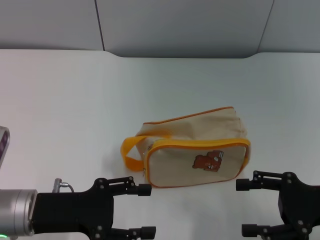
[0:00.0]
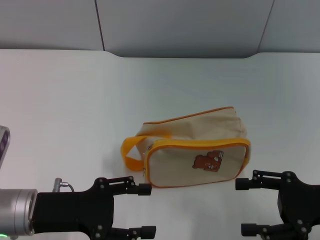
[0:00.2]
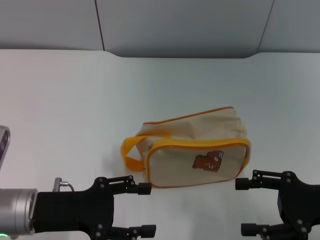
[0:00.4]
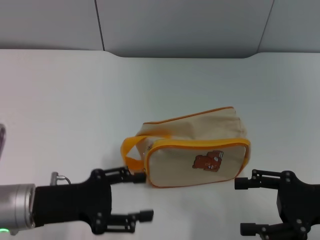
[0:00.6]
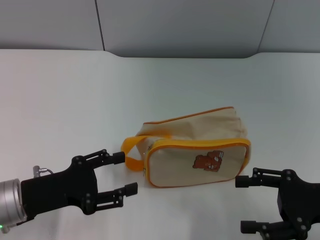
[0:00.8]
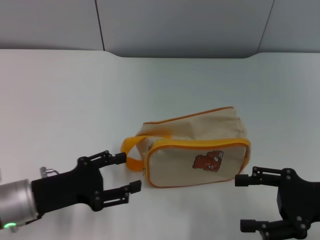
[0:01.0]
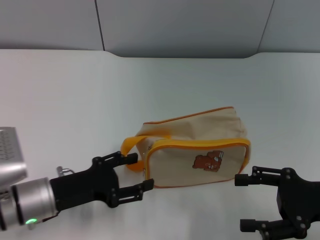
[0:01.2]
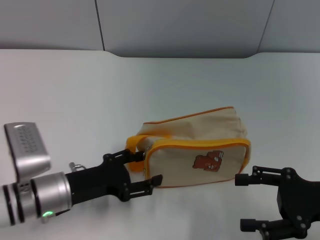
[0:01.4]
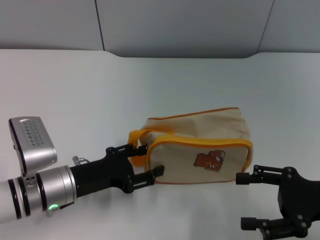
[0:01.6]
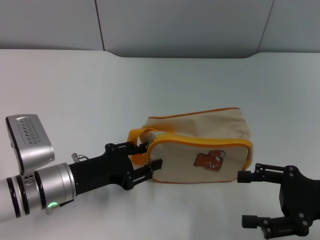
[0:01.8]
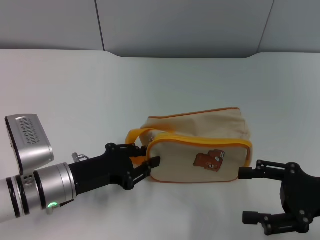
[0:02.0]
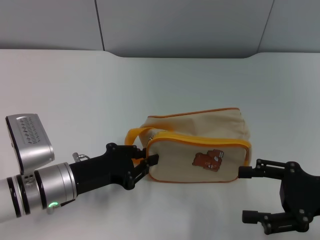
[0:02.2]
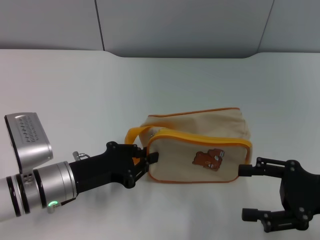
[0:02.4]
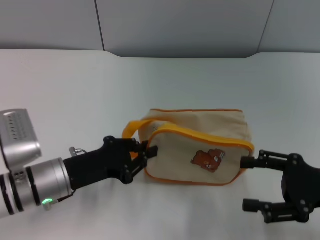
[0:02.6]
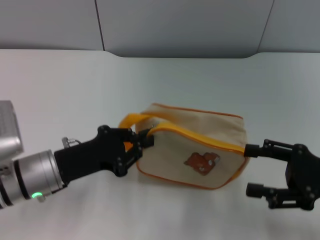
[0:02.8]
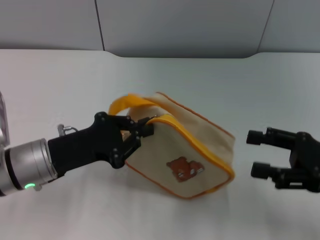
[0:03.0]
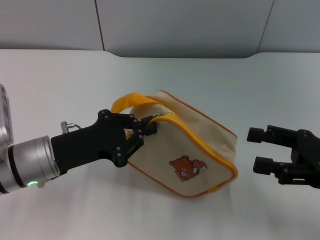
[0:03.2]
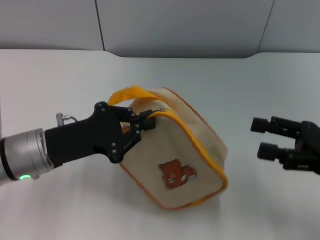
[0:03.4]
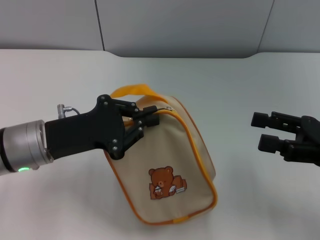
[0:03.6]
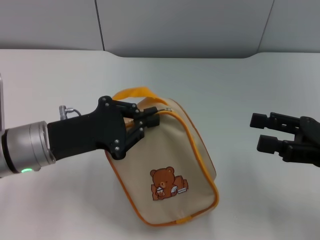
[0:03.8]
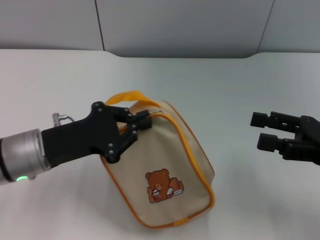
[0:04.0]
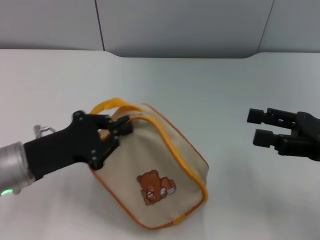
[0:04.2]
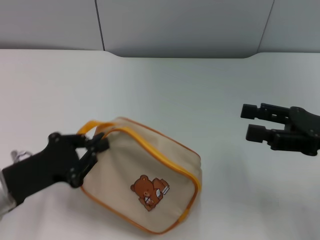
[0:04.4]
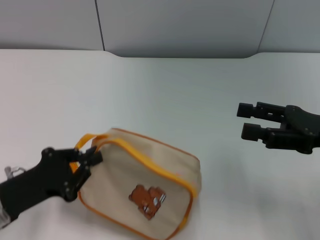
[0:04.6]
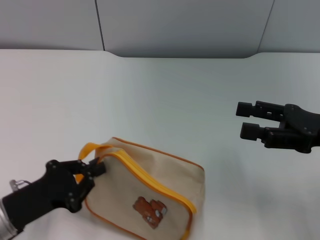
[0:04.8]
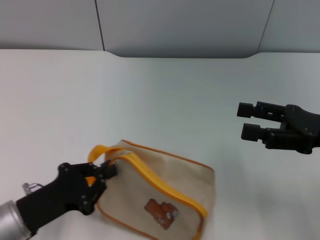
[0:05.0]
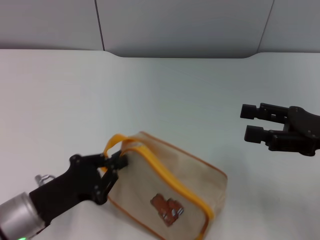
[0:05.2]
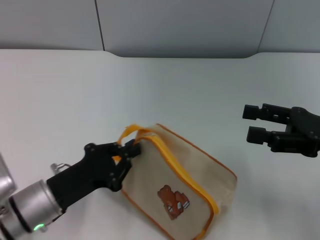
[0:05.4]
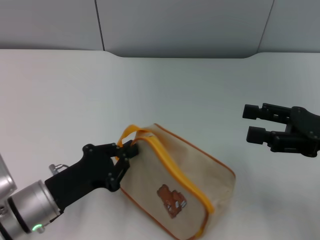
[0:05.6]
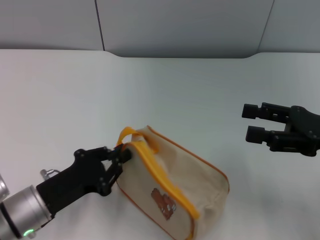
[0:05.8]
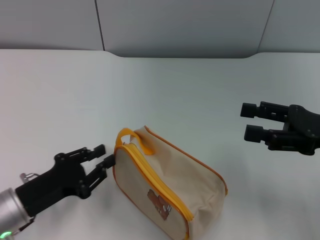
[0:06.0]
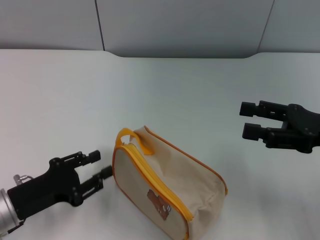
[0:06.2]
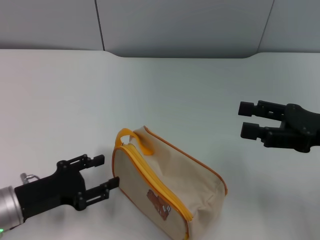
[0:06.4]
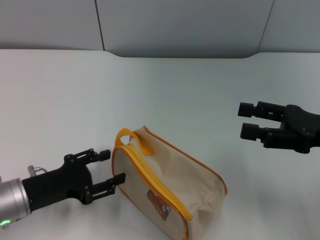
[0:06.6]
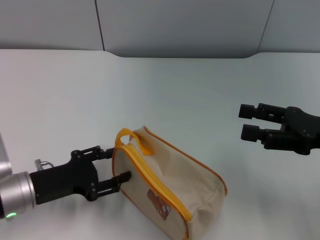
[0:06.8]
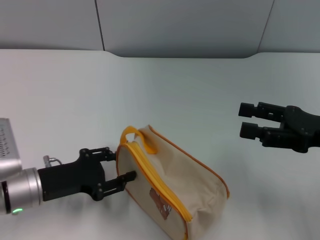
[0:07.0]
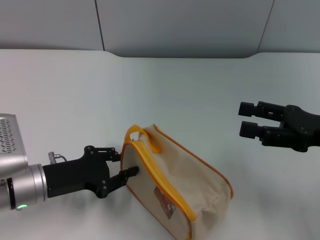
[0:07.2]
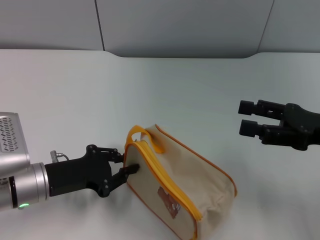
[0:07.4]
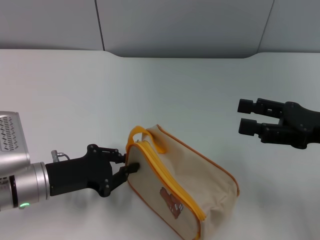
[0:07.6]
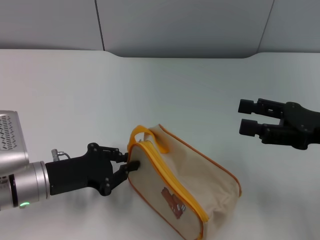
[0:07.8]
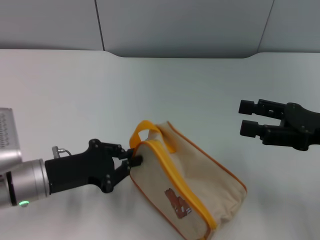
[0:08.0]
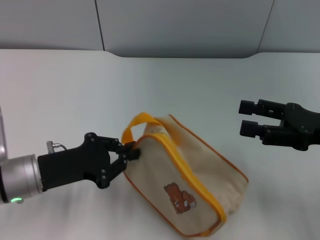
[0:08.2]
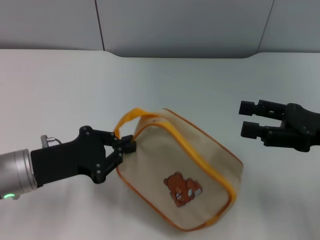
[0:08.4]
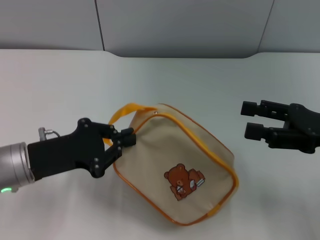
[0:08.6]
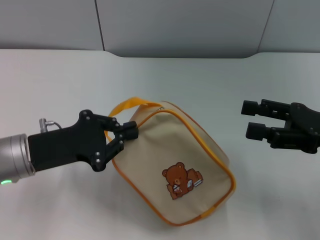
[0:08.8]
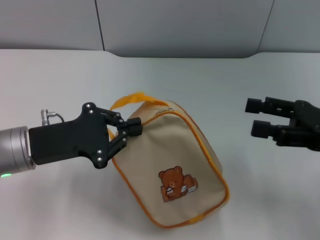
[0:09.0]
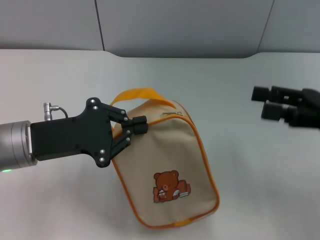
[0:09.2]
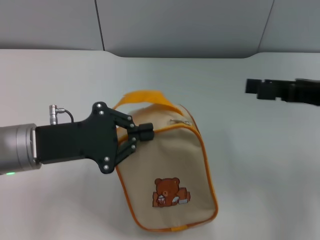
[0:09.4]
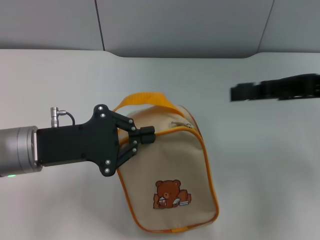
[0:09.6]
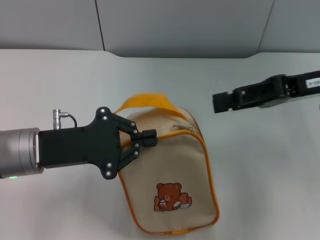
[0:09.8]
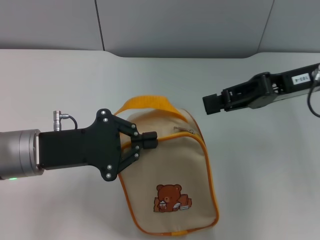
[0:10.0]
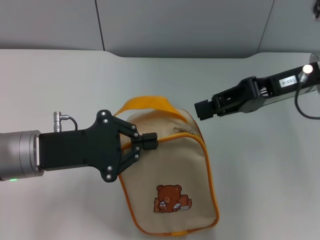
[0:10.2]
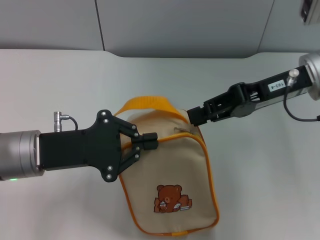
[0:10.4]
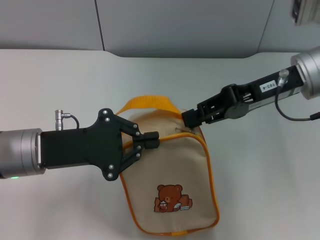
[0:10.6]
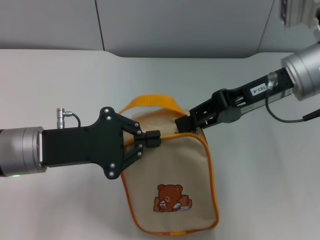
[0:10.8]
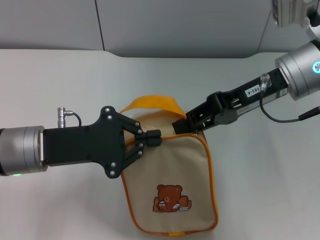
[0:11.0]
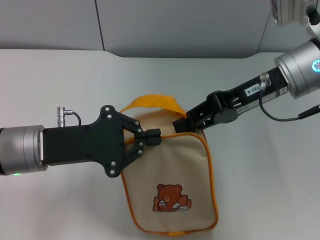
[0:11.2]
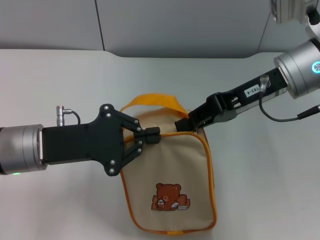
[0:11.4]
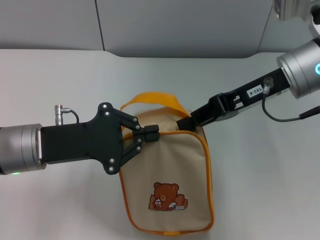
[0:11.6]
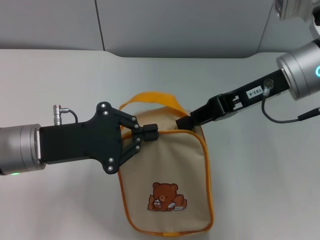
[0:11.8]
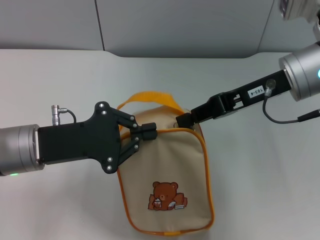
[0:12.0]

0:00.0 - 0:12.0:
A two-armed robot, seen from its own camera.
Step, 0:00.0 - 0:09.2: Pick up the bag with left gripper.
0:00.0 - 0:01.6: The left gripper shifts by about 5 cm.
0:01.6 - 0:03.0: The left gripper goes roughly 5 cm upward, and closes.
0:03.0 - 0:04.4: The left gripper travels to the left by about 5 cm.
0:06.0 - 0:07.6: The left gripper is displaced forward by about 5 cm, and opens and closes again.
0:07.6 - 0:09.0: The left gripper goes about 5 cm upward.
0:09.0 - 0:10.4: The right gripper travels to the left, forward and upward by roughly 15 cm, and closes its fingers.
0:10.4 - 0:12.0: The grippers make only small movements.

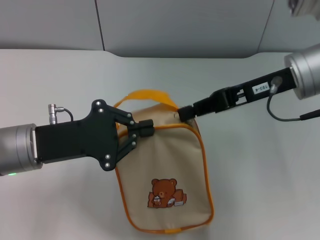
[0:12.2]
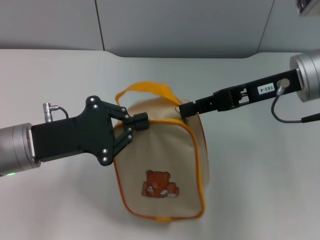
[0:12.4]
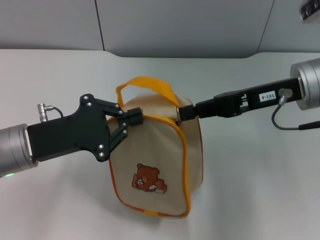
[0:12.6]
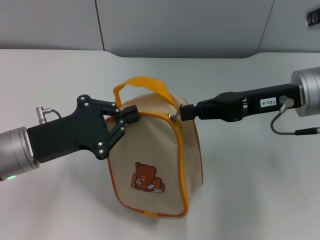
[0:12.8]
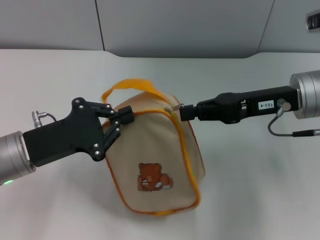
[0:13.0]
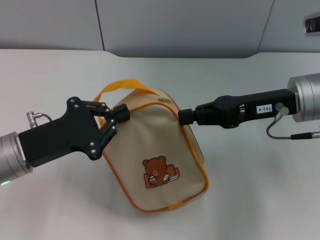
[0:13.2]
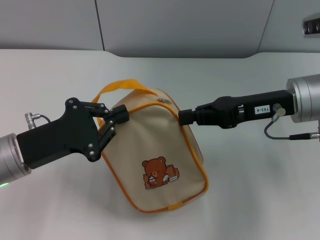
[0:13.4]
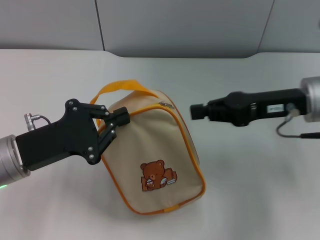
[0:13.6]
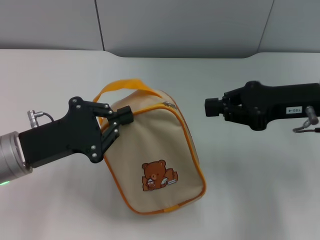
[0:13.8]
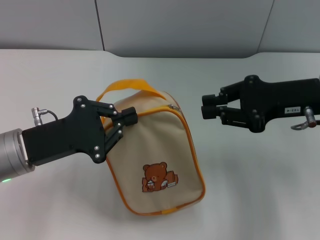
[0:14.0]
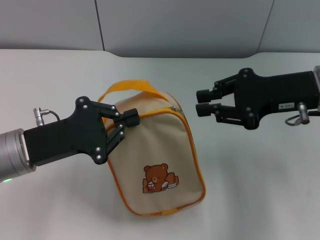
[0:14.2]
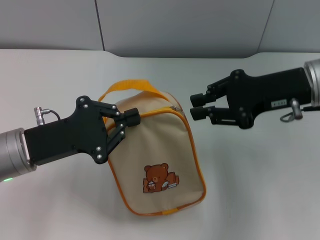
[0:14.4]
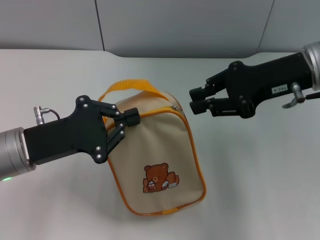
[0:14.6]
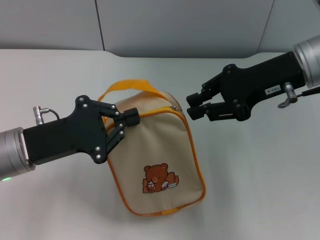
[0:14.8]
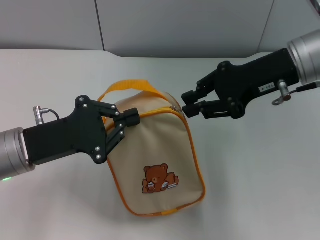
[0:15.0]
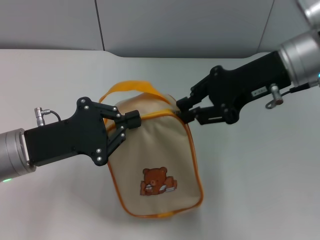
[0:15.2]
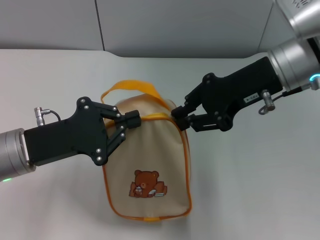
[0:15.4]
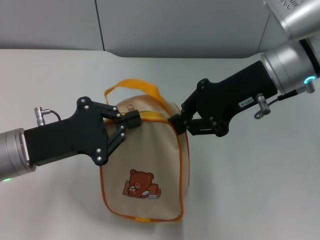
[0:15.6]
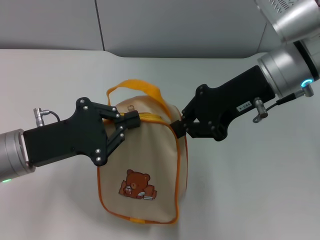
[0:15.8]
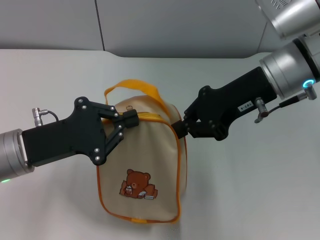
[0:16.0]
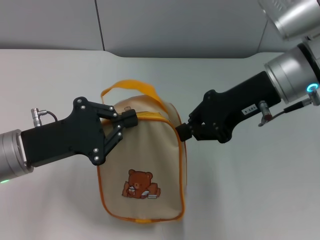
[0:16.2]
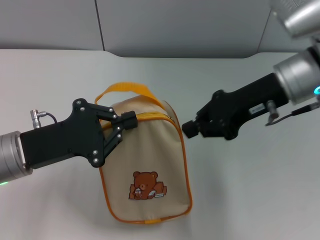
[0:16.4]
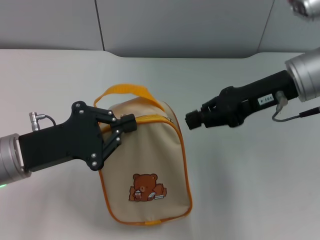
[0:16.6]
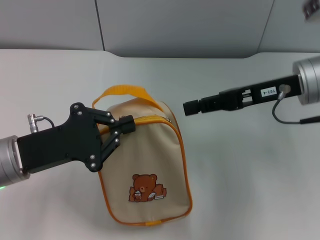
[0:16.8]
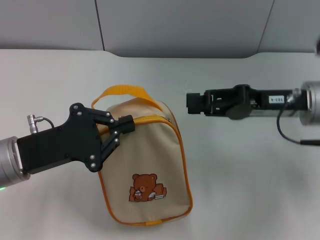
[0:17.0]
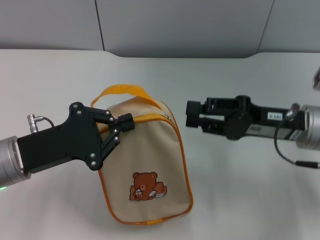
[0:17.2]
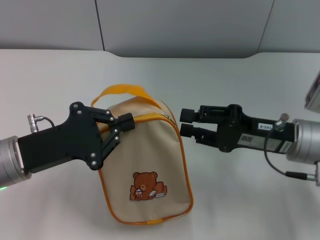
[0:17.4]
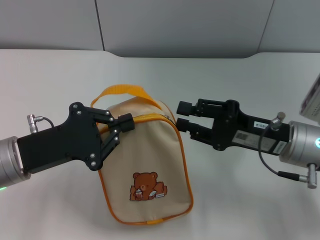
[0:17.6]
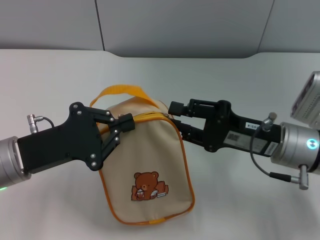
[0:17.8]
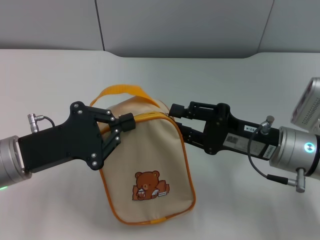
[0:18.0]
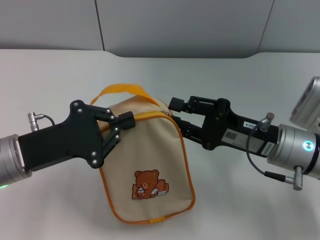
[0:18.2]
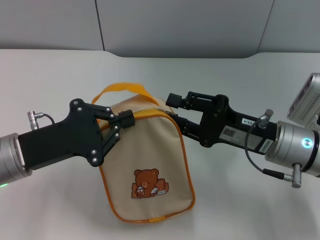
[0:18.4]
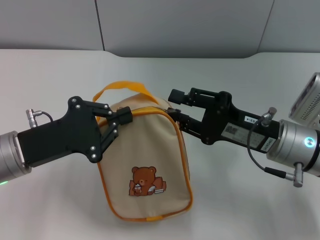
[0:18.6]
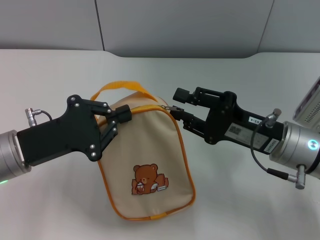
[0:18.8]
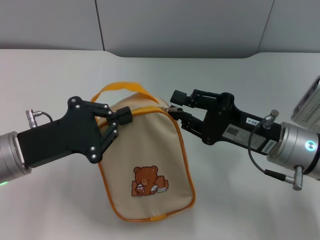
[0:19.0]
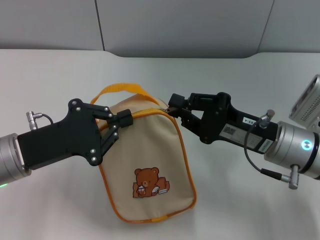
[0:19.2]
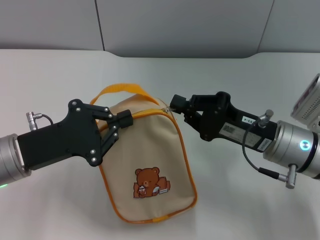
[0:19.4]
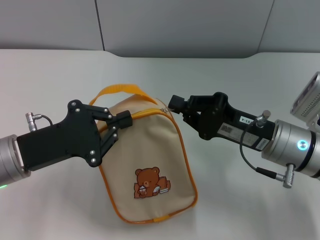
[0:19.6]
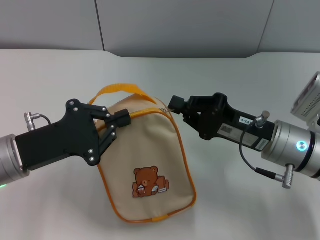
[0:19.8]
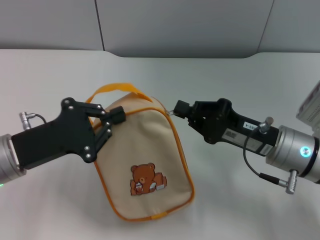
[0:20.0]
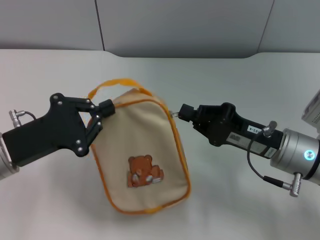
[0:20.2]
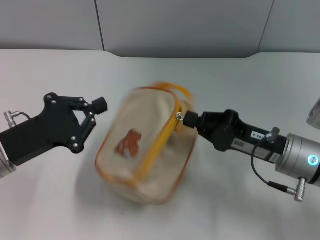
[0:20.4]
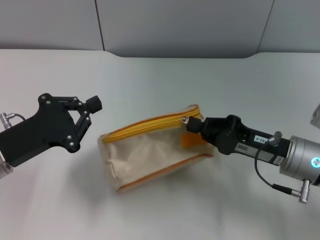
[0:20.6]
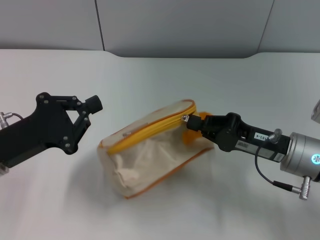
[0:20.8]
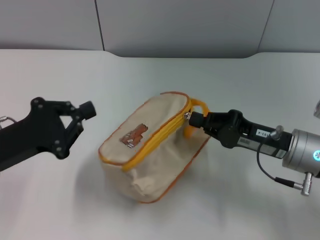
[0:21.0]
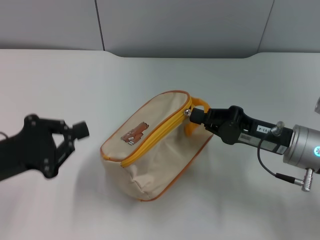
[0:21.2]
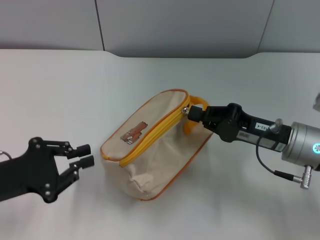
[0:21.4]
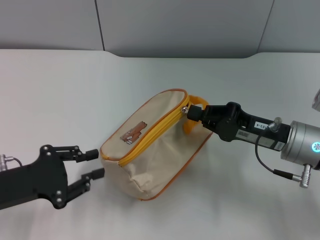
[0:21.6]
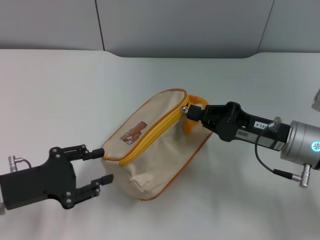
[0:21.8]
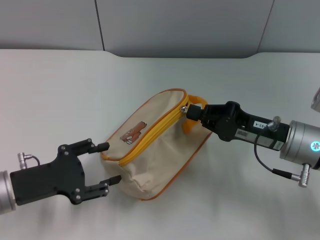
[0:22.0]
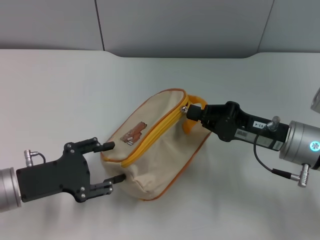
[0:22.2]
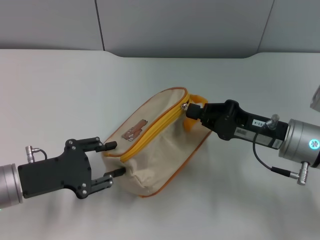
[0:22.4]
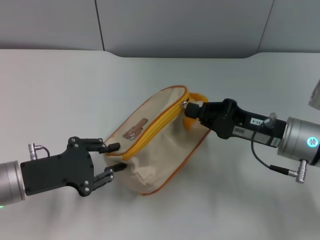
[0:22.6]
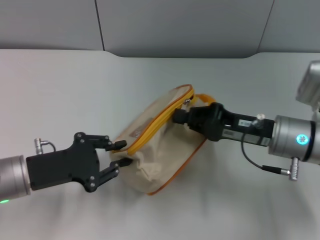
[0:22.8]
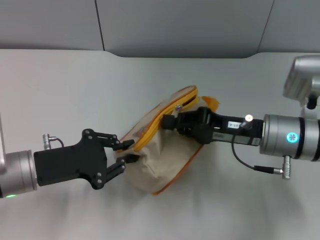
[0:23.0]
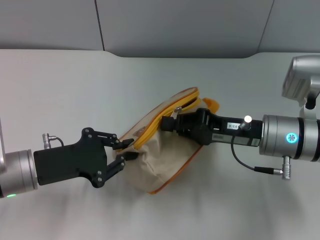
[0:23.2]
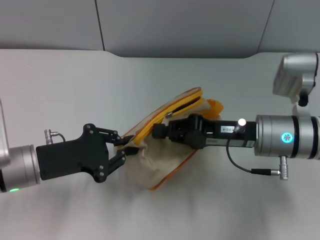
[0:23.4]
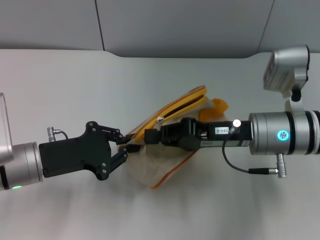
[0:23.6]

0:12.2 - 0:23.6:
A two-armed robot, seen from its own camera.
0:12.2 - 0:13.6: The right gripper moves some 5 cm.
0:13.6 - 0:15.0: The right gripper shifts about 5 cm upward.
0:15.0 - 0:16.4: The grippers stay close to where they were, moving slightly.
0:16.4 - 0:17.8: The right gripper travels downward and backward by roughly 15 cm, and opens.
0:17.8 - 0:19.4: The right gripper closes.
0:20.8 - 0:22.2: The left gripper opens its fingers.
0:22.2 - 0:23.6: The left gripper closes its fingers, while the right gripper moves to the left, roughly 5 cm.
